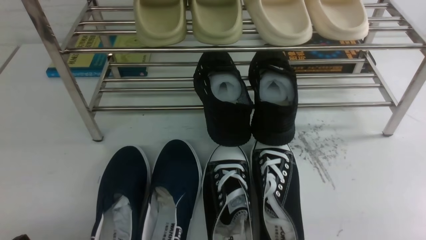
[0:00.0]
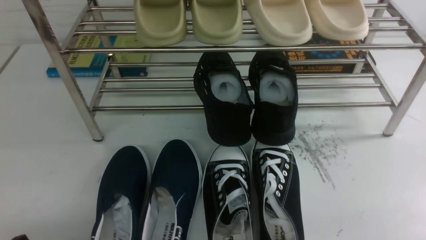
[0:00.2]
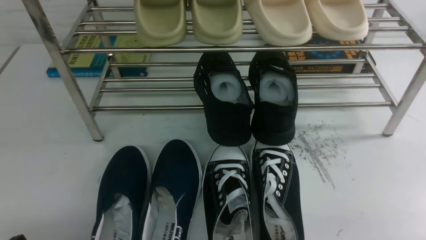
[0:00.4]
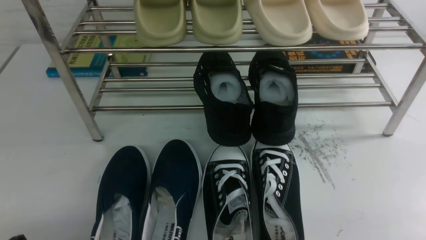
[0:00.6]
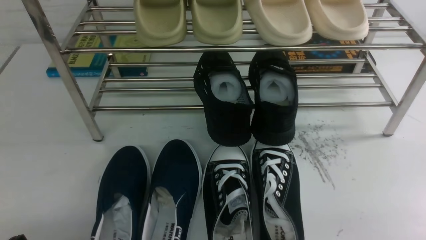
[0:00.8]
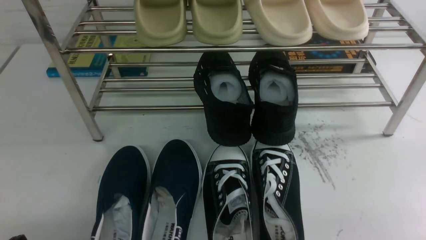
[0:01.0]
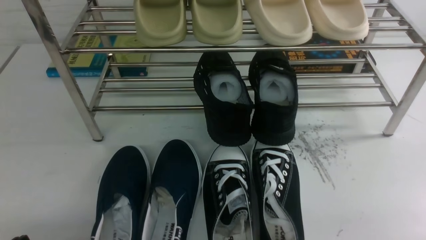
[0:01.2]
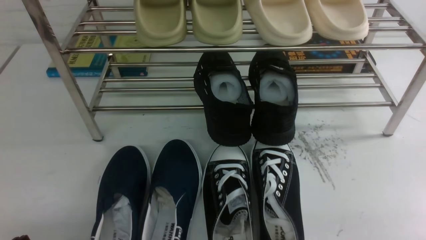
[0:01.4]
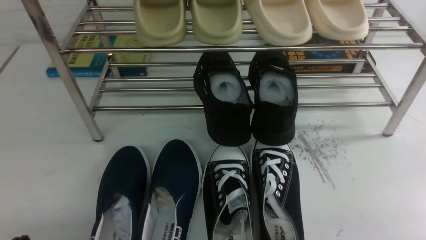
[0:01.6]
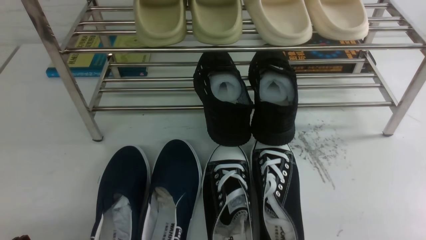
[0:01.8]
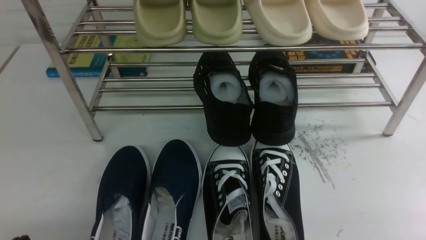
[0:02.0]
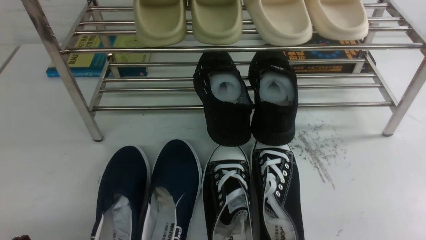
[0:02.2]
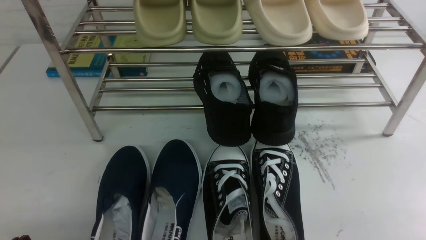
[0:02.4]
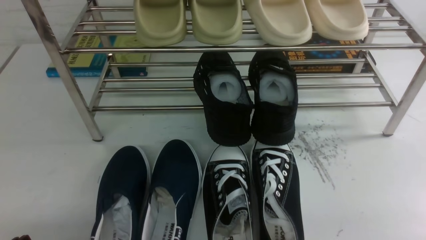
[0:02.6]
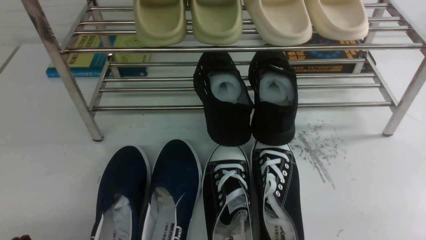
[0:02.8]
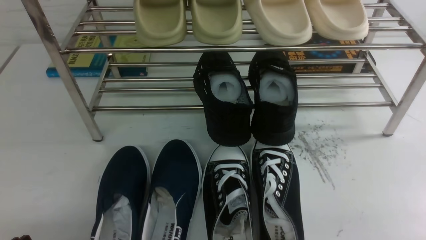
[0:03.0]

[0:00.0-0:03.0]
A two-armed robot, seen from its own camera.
0:00.0 to 0:03.0: Both grippers stay put.

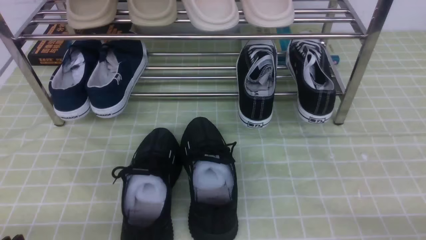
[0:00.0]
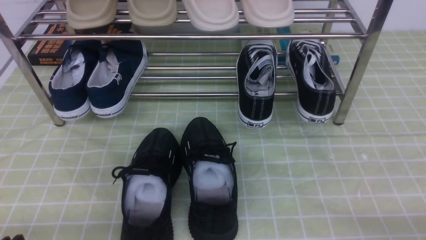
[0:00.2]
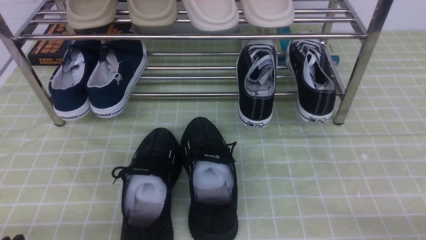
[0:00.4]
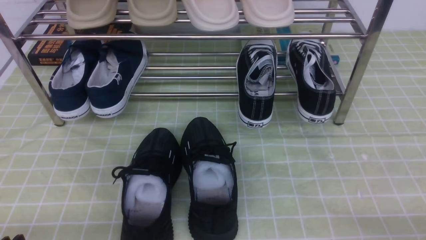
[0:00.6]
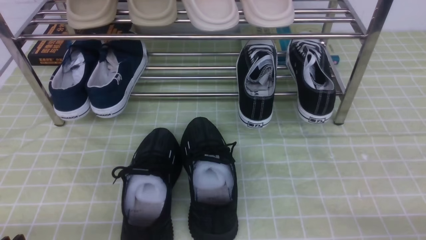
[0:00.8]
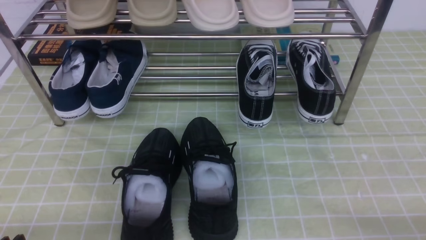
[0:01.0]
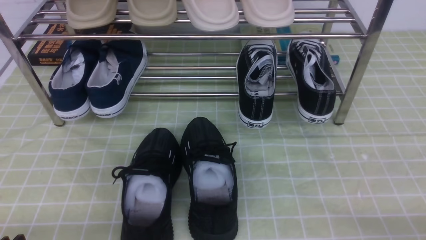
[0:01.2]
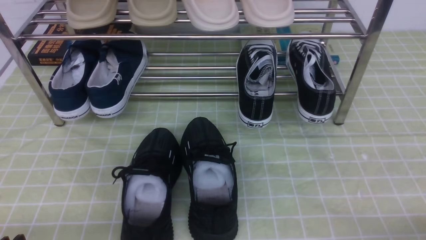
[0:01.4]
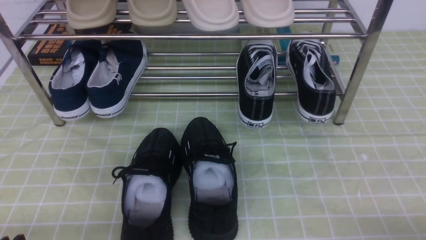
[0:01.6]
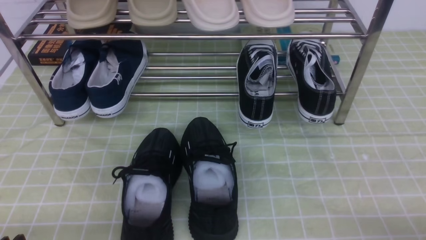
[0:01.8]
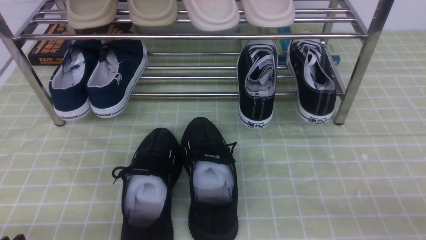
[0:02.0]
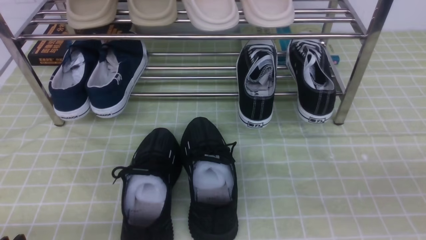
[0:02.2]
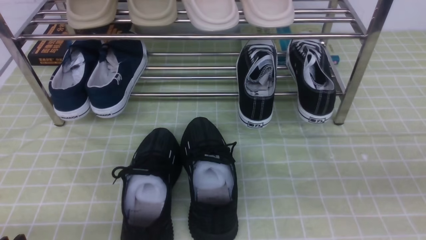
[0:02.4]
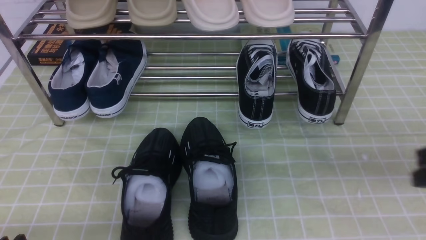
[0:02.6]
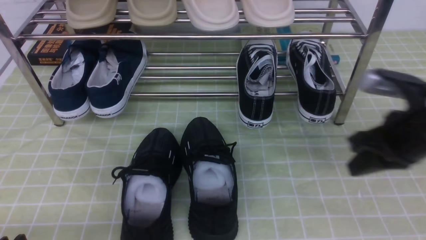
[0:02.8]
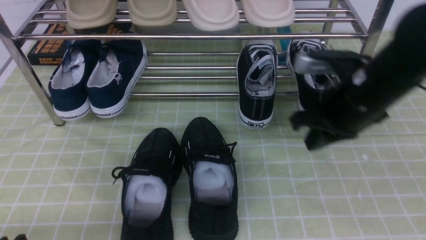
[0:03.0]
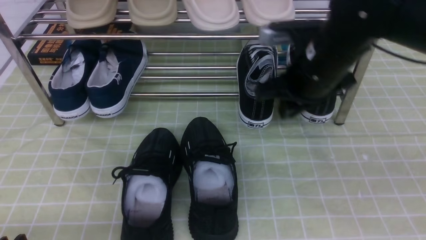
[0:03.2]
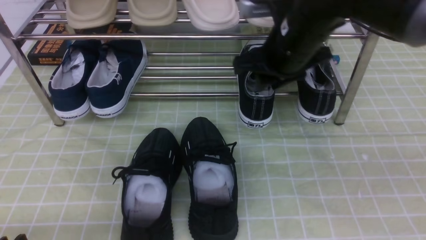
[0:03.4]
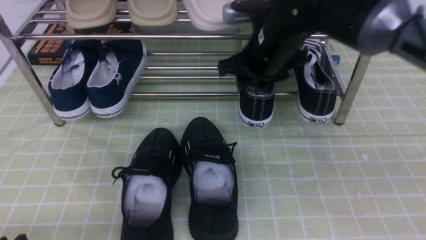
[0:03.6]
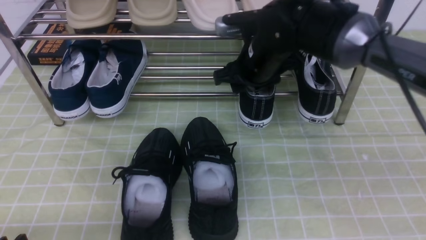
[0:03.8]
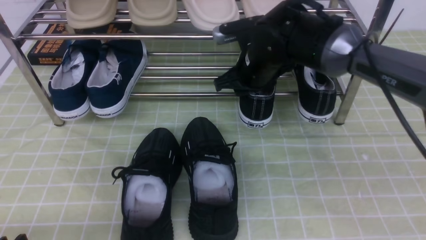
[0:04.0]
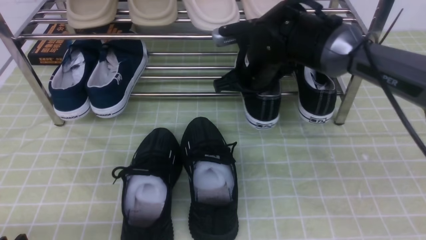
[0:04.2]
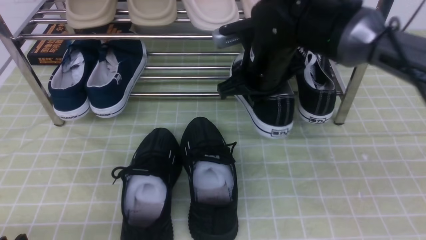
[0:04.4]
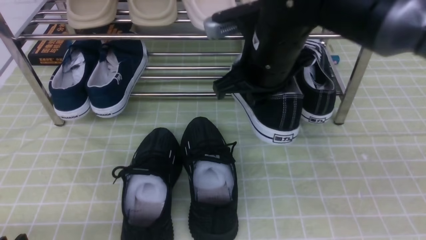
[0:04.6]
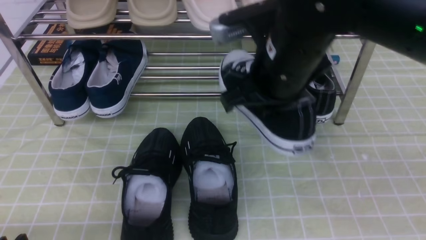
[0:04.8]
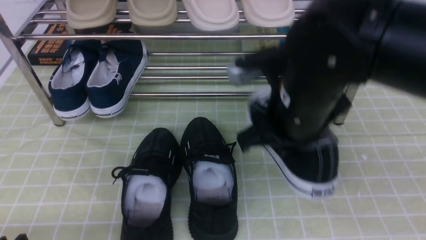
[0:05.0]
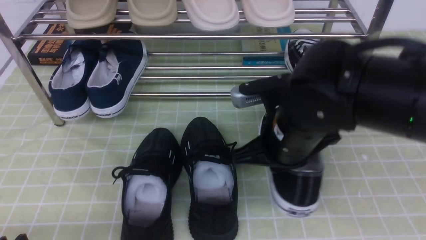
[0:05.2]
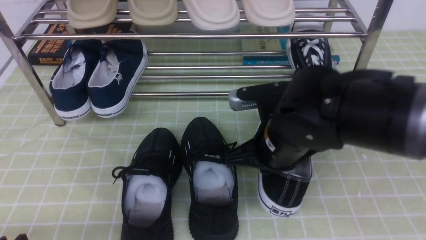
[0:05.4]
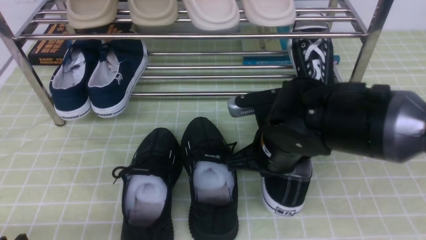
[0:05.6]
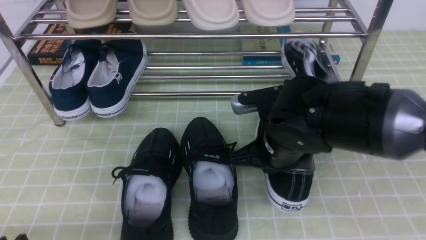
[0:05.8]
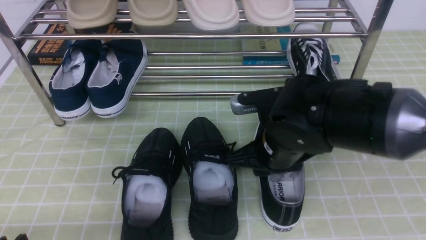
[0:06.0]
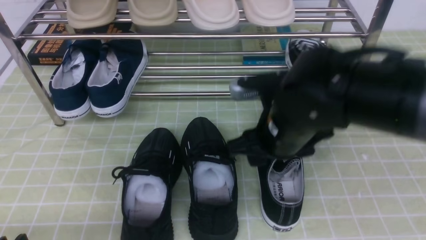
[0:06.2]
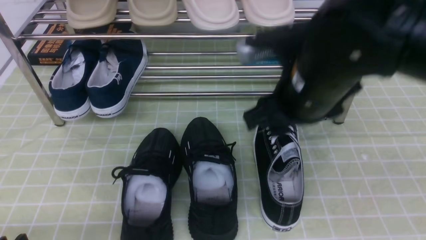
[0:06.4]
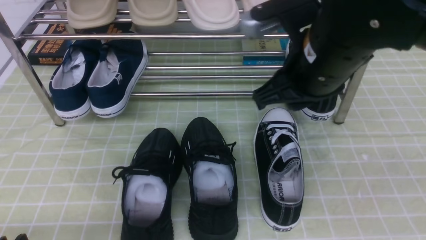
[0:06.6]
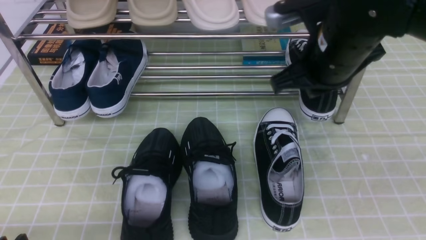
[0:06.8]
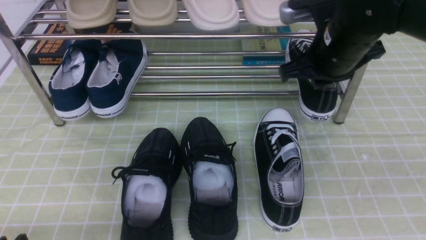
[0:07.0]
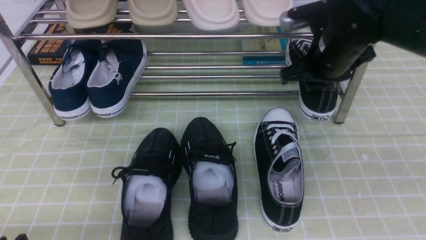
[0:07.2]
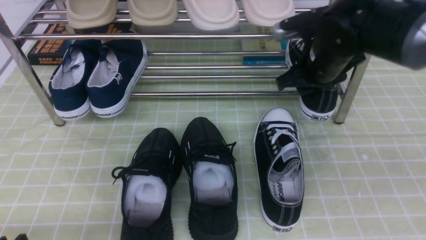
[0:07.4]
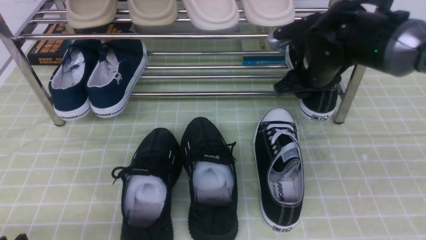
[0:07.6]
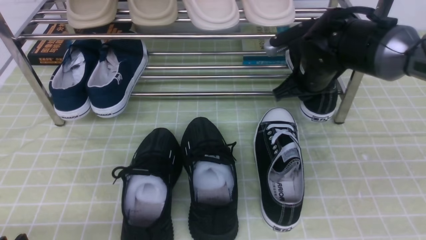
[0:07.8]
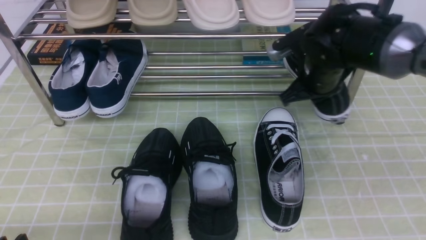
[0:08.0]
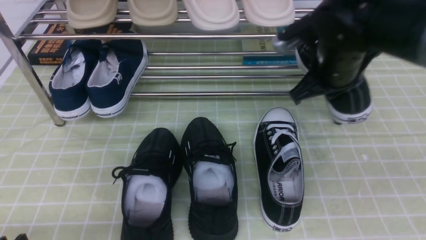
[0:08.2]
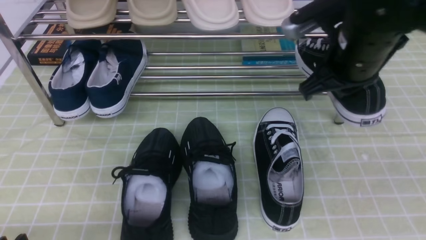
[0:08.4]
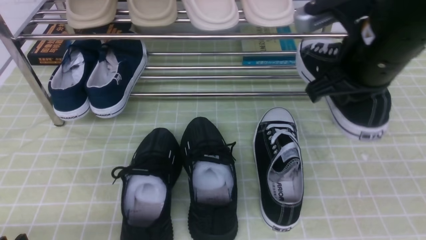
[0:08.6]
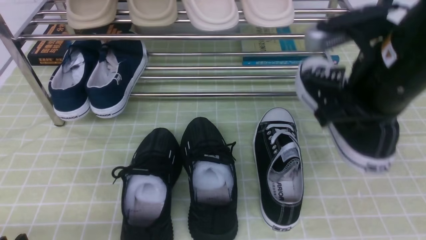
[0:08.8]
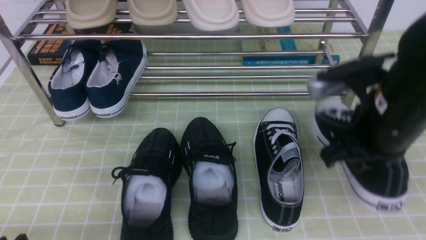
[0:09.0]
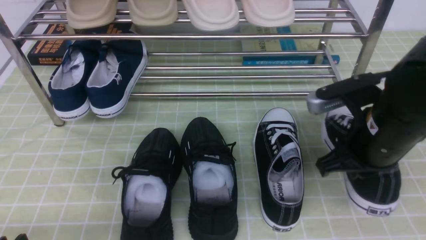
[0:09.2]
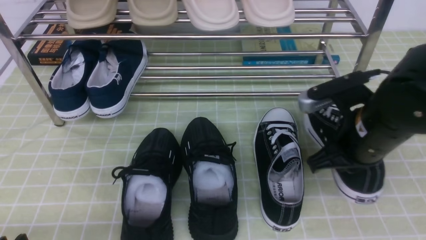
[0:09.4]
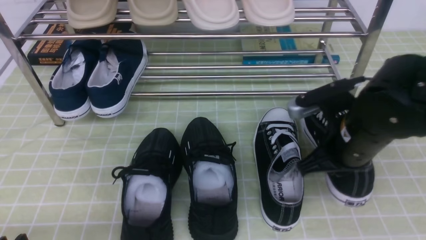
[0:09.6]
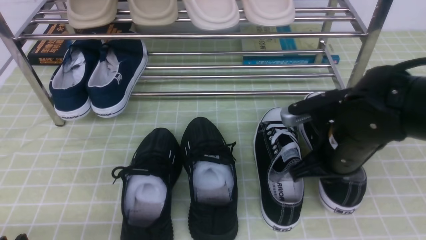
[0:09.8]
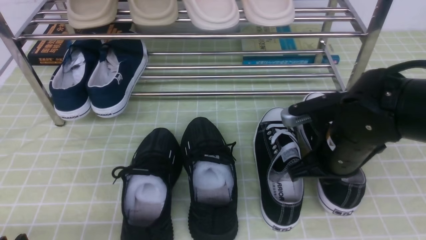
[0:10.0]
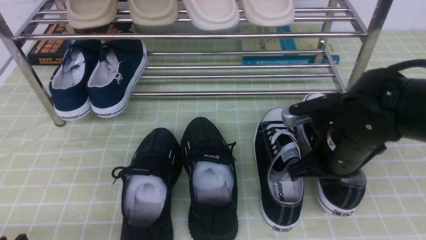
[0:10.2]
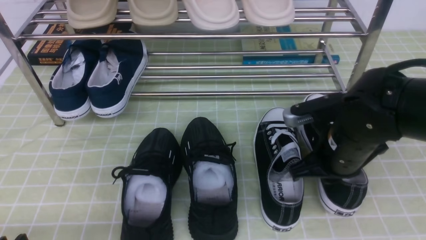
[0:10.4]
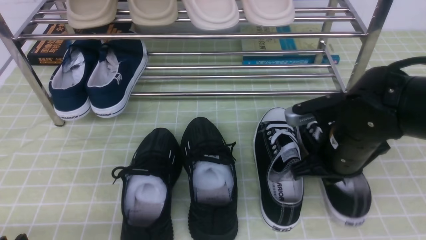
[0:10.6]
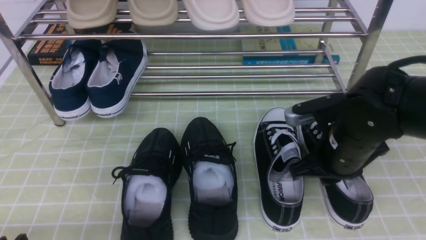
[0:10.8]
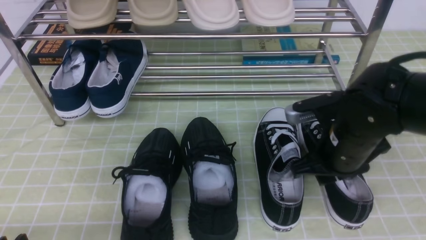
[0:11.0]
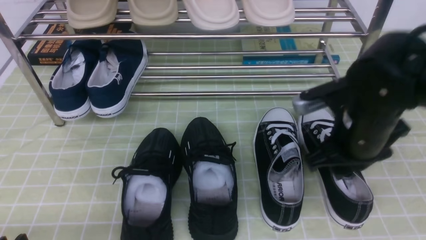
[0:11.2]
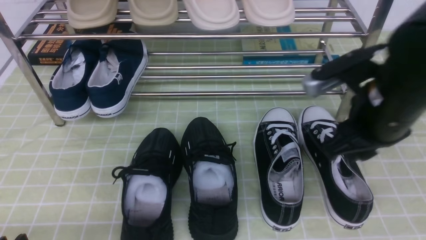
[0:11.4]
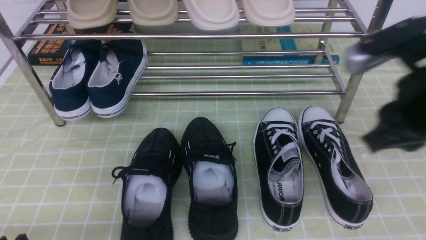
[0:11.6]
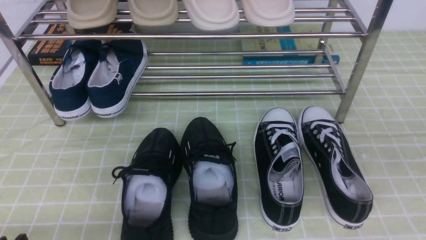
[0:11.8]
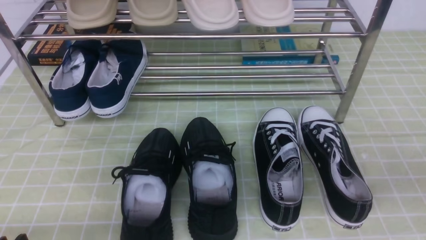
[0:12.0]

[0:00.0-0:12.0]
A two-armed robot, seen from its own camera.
Step, 0:00.0 to 0:03.8: use the right arm to clamp a shoe on the right side of the shoe rack.
Step, 0:04.2 to 0:06.6: use the right arm to take out the clamped shoe from the shoe rack and put it down.
Step, 0:06.8 to 0:07.8: use the right arm to clamp a shoe on the right side of the shoe rack.
Step, 0:08.0 to 0:11.2: use the right arm to take out the clamped shoe from the shoe rack and put it down.
0:01.6 to 0:03.0: The right gripper moves forward, upward and to the left, roughly 30 cm, and closes up. Meanwhile the left gripper opens its fingers.
0:03.0 to 0:04.4: The right gripper travels to the left and forward by roughly 15 cm, and opens and closes again.
0:04.4 to 0:06.0: The right gripper travels backward and downward by about 15 cm, and opens up.
0:06.0 to 0:07.6: The right gripper is displaced forward and to the right by about 15 cm, and closes, then opens again.
0:07.6 to 0:09.0: The right gripper moves backward and upward, some 15 cm, and closes.
0:09.0 to 0:10.4: The right gripper travels downward by roughly 10 cm.
0:10.4 to 0:12.0: The right gripper heads backward, upward and to the right, covering approximately 25 cm, and opens, then closes once more.
